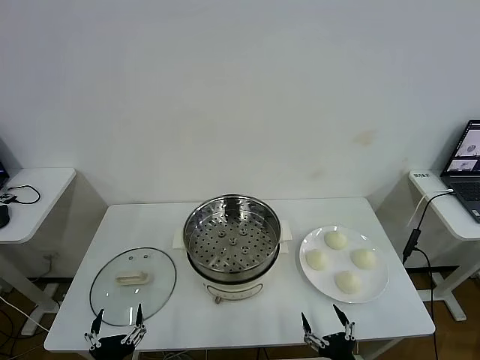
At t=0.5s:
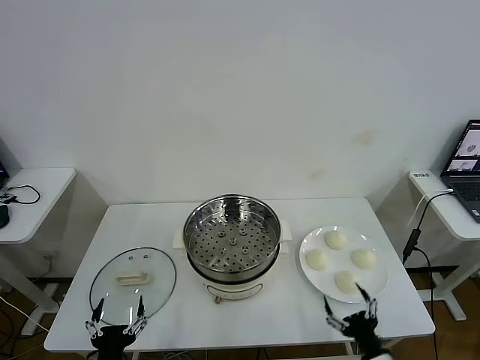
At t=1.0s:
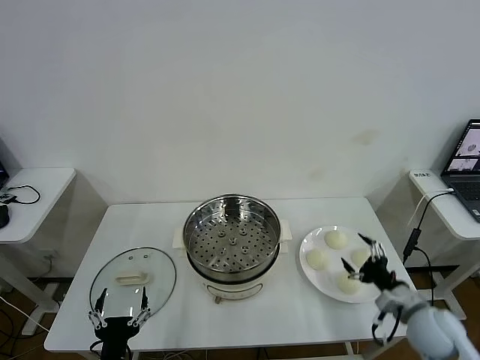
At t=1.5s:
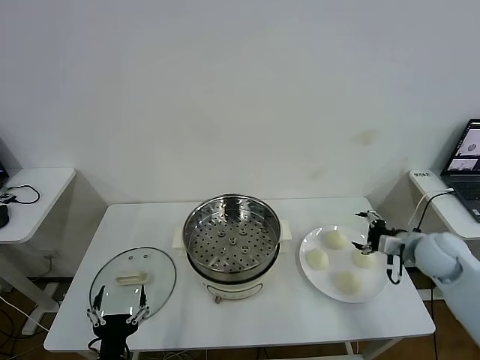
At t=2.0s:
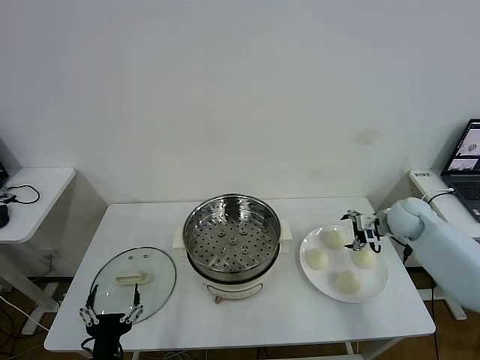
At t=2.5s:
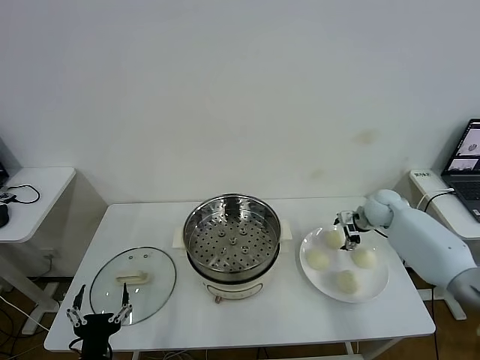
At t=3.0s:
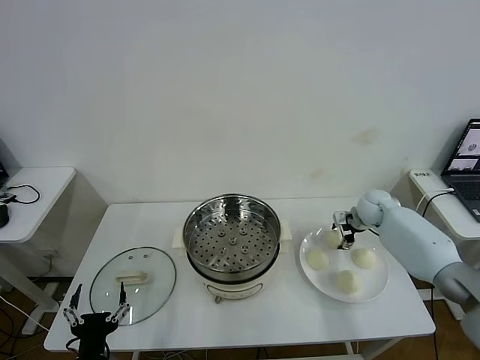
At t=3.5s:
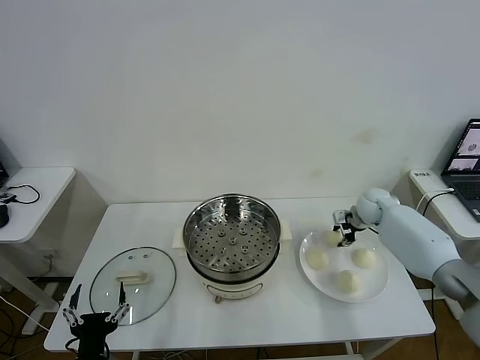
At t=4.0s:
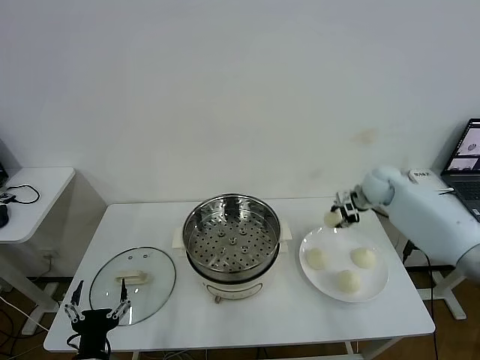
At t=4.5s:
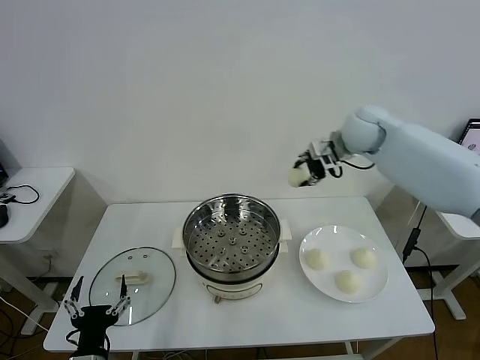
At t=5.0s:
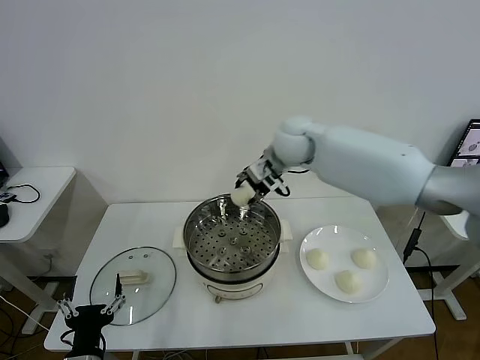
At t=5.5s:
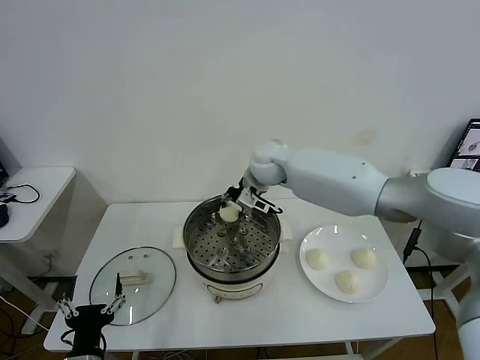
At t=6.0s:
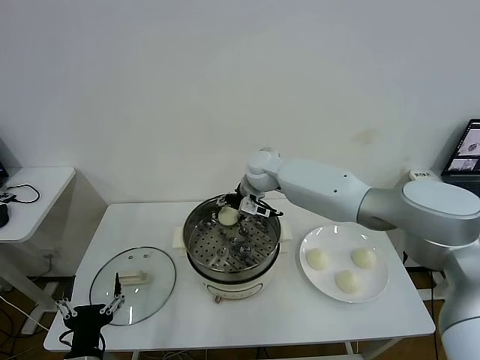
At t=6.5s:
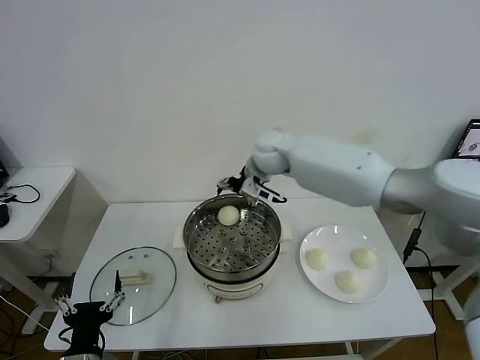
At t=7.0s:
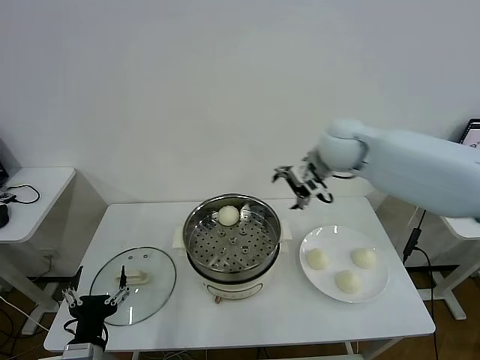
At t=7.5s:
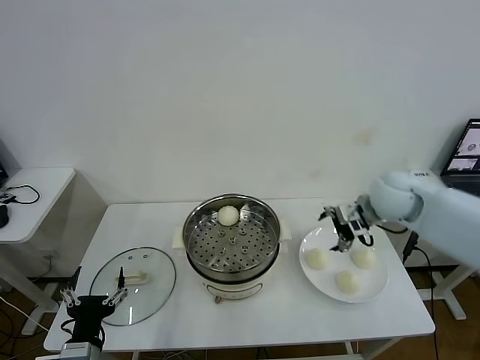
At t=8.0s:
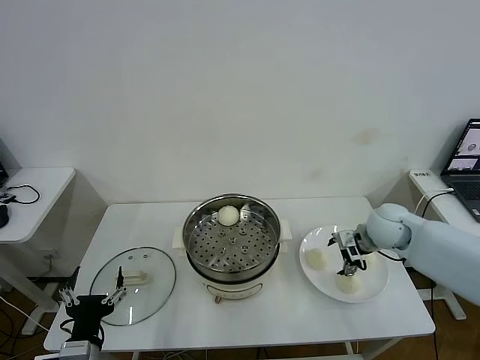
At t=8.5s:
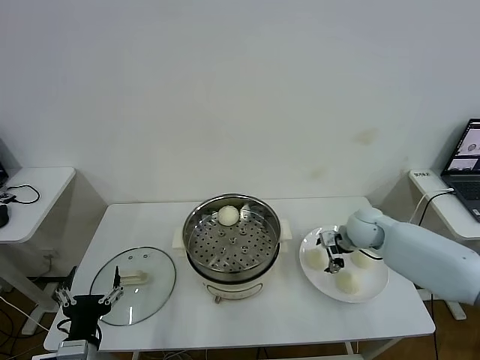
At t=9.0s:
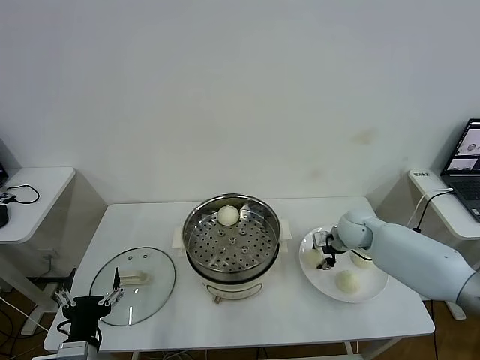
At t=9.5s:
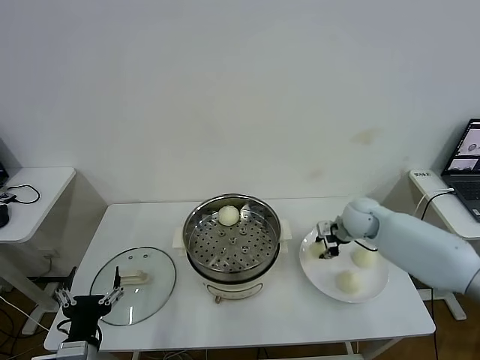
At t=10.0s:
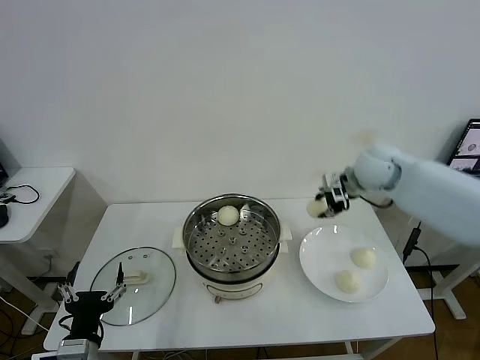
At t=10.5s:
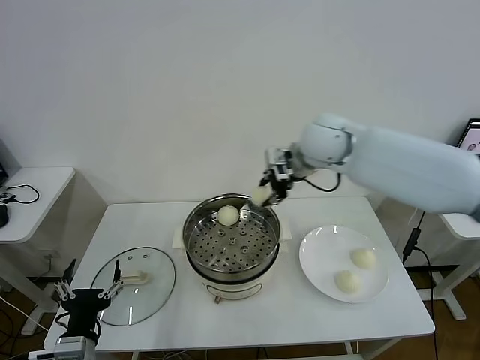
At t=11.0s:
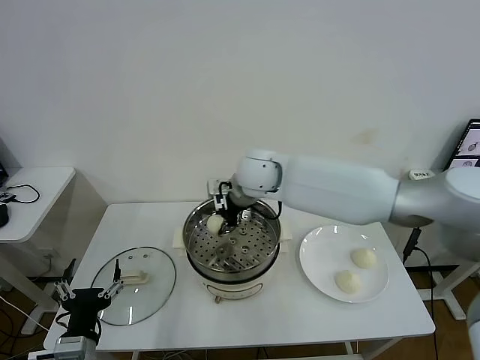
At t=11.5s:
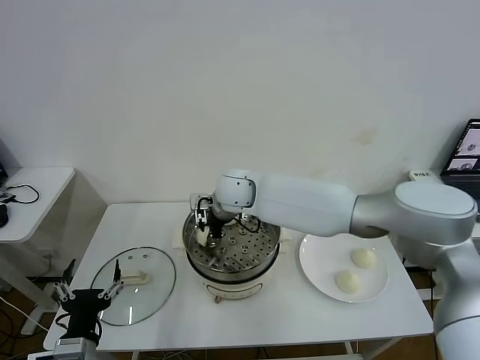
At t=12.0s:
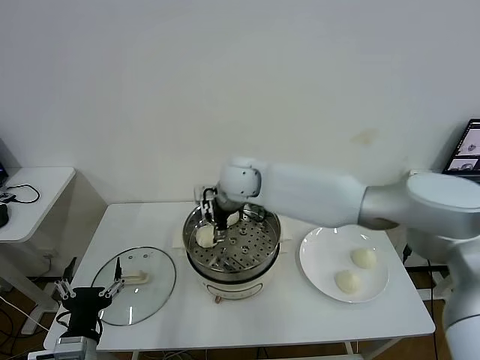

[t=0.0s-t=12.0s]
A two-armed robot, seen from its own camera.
Task of the whole recording: take steamed baozi put them in steamer then cover it.
Step, t=0.0s to t=3.0s: Grasp the baozi in the plate with right gripper.
Step, t=3.5s to t=6.0s: Place the baozi on the steamer with right gripper.
Step, t=6.5s to t=9.0s: Grasp the baozi in the plate with right gripper.
Step, t=9.5s to t=11.5s: Place the baozi on the steamer with right gripper.
t=2.0s to t=4.0s: The right gripper shifts some 15 cm upward, to the left and forward, and closes its fingers.
t=4.0s to t=6.0s: The right gripper travels to the left by some 30 cm, and opens up.
t=6.0s to t=8.0s: The right gripper travels to the right and backward by about 30 cm.
t=8.0s to t=10.0s: The right gripper moves upward, some 15 cm, and closes up.
t=10.0s to t=12.0s: The right gripper heads to the left, covering approximately 25 cm, and opens its fingers.

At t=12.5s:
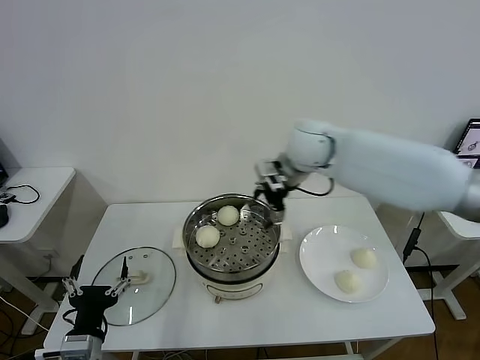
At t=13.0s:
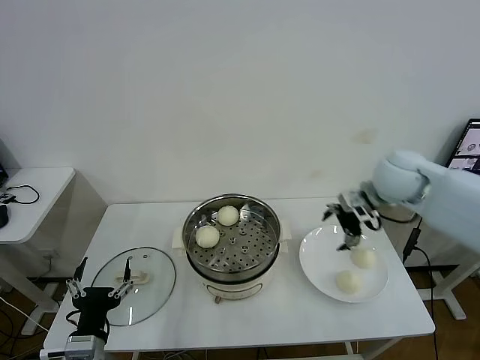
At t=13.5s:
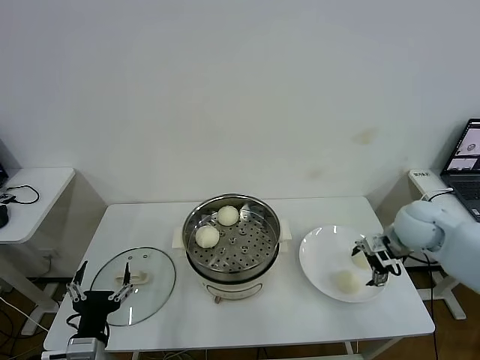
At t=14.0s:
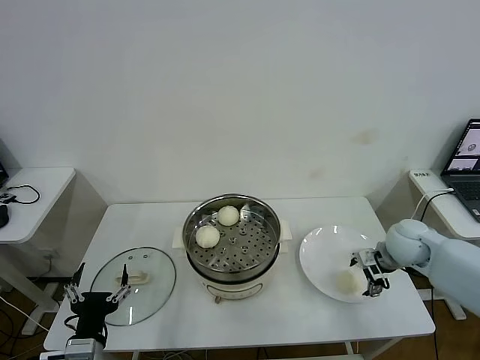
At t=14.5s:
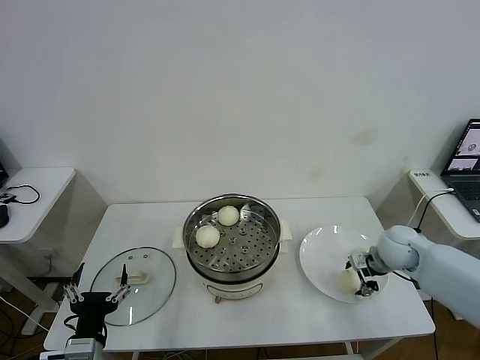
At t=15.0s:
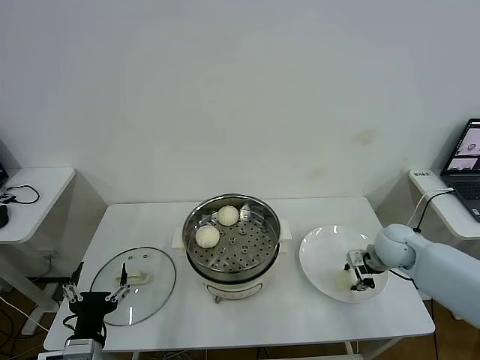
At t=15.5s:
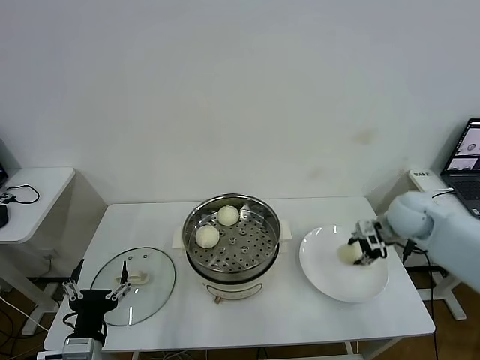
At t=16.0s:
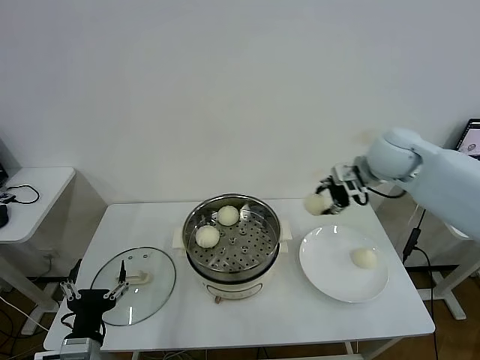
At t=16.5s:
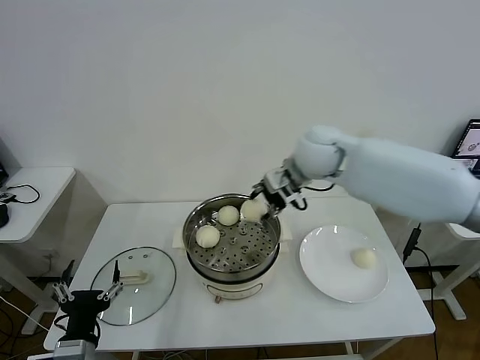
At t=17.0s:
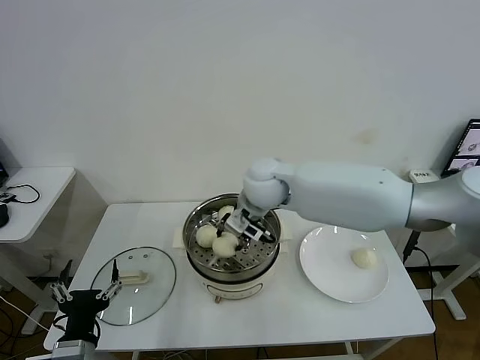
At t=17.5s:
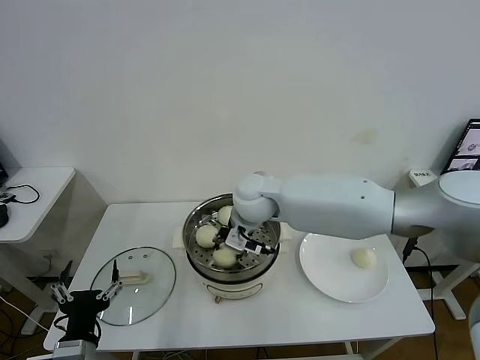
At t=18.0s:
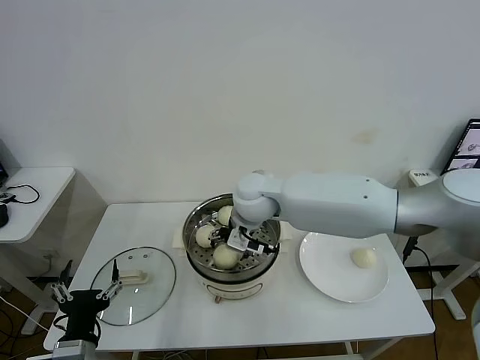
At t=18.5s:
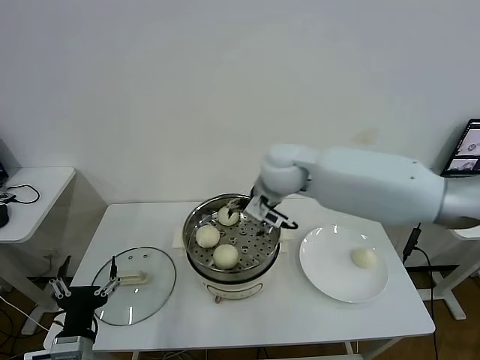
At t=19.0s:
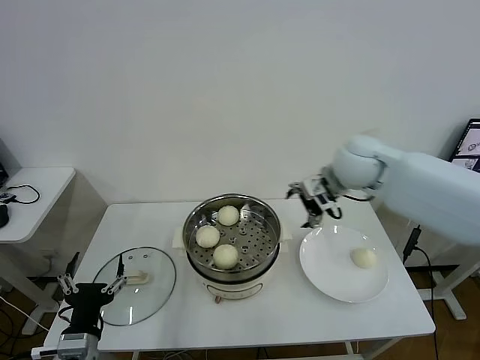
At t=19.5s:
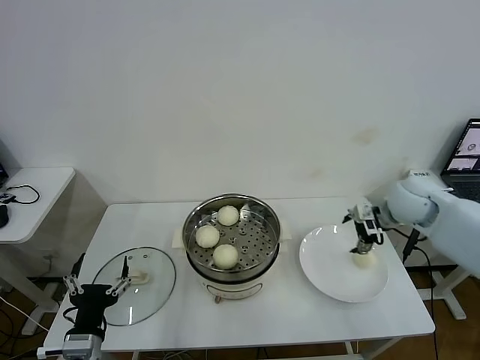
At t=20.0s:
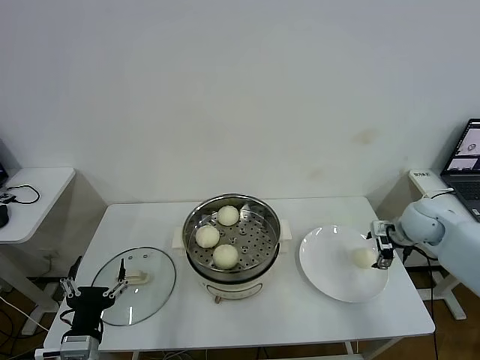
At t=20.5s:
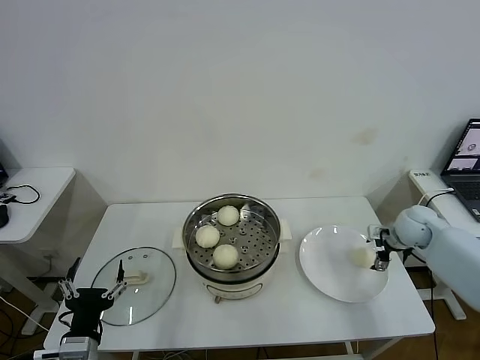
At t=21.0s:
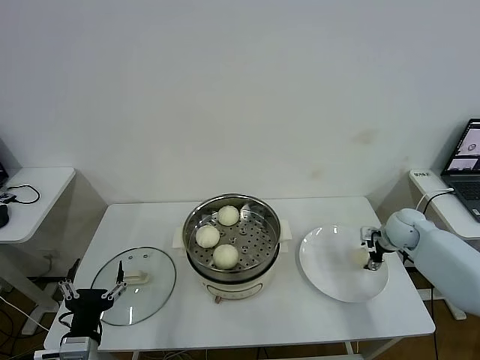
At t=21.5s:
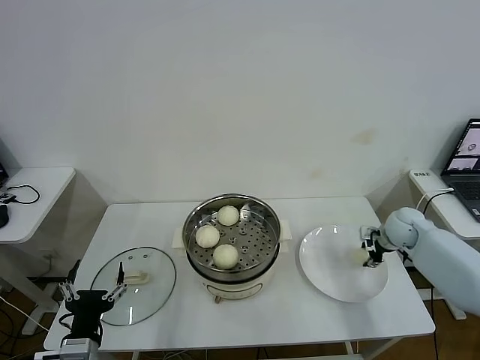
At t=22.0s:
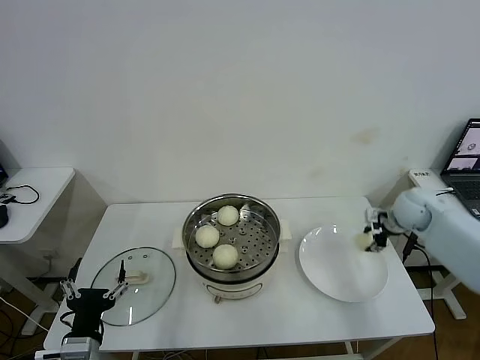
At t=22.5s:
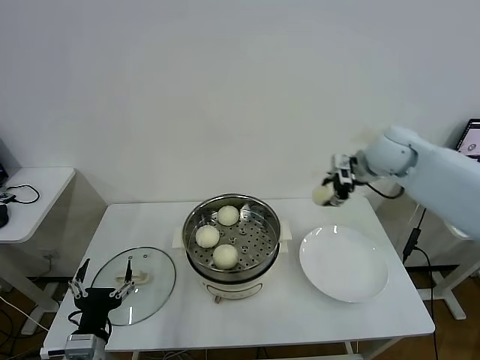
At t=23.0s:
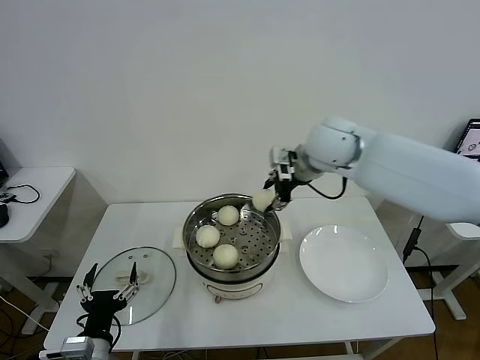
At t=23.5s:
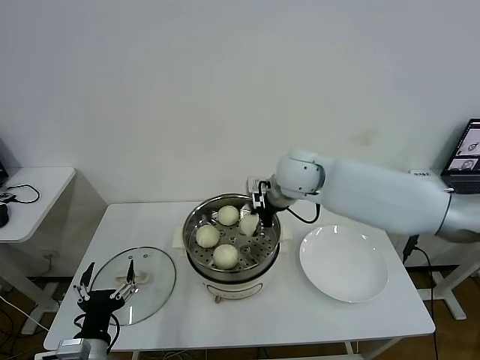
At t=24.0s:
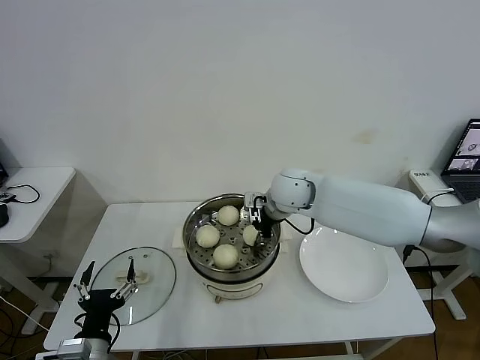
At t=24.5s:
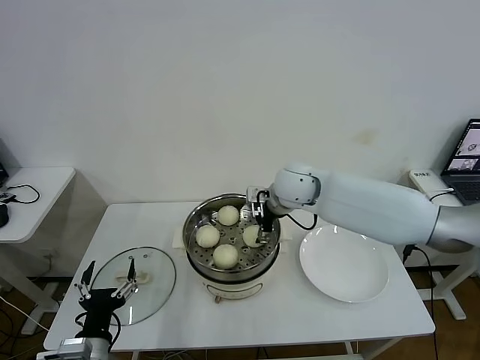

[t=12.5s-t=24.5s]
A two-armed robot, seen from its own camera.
Task of the whole recording: take steamed baozi put them in steamer then cover it.
Step, t=12.5s to t=14.5s: Grasp the baozi in the plate with right gripper.
Step, t=15.5s to t=17.5s: Place the baozi on the steamer with right gripper.
Step, t=18.5s to t=21.5s: Grasp the baozi in the plate with right gripper.
Step, t=22.0s to t=24.0s: Place the baozi on the steamer with right gripper.
t=12.5s to t=14.5s: The right gripper travels downward and to the right by about 30 cm.
t=14.5s to t=16.5s: The right gripper travels to the left and upward by about 30 cm, and closes up.
t=16.5s to t=18.5s: The right gripper opens.
t=18.5s to t=20.5s: The right gripper is displaced to the right and downward by about 40 cm.
t=20.5s to t=22.5s: The right gripper is displaced upward and to the left by about 25 cm, and closes.
t=22.5s to t=24.5s: The right gripper travels to the left and downward by approximately 20 cm, and opens.

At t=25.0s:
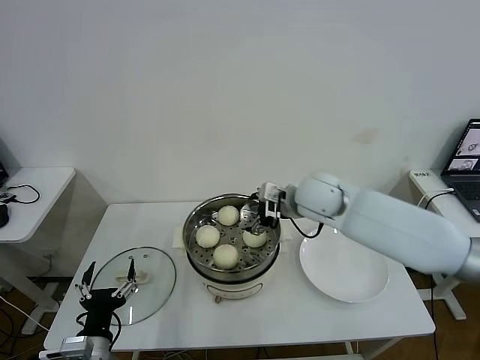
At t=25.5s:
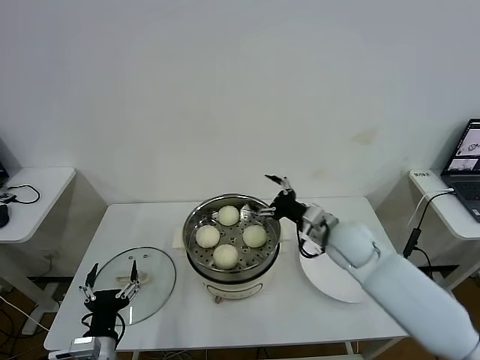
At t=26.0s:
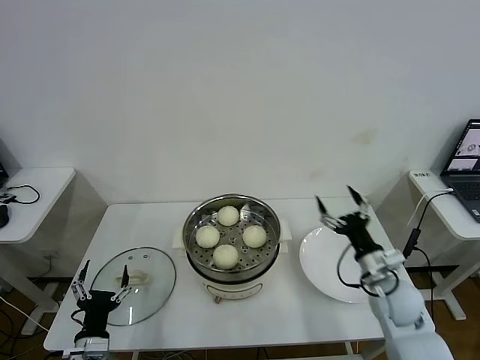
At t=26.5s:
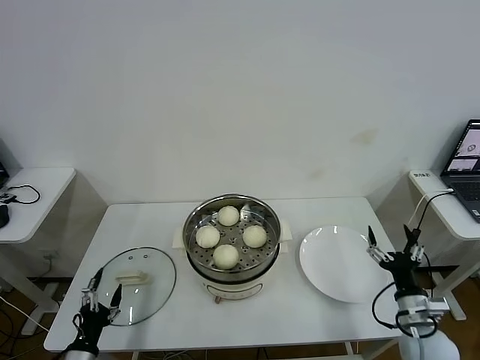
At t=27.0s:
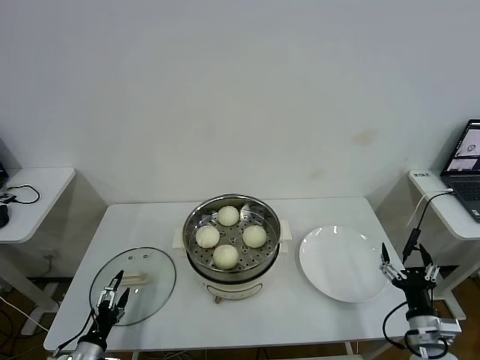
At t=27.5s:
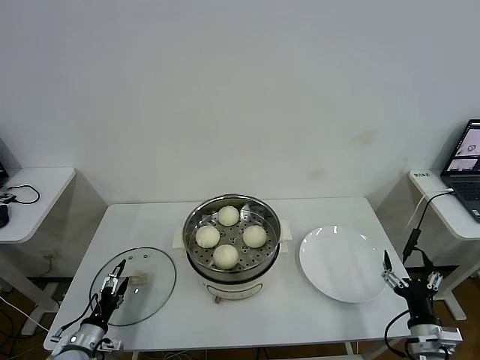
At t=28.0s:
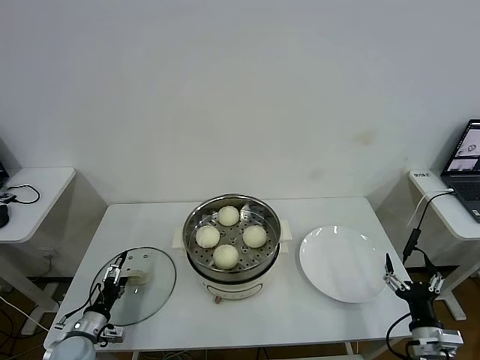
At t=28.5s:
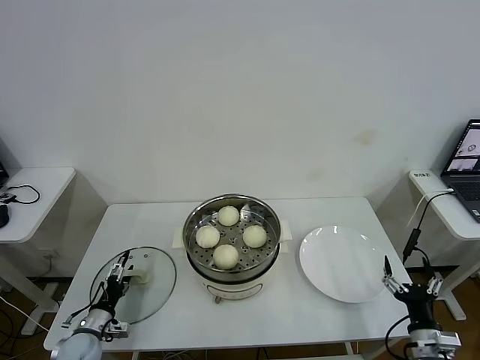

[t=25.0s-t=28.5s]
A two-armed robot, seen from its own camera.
Task of the whole recording: take steamed baozi put them in steamer then cover it.
t=25.0s to t=27.0s: The right gripper goes some 40 cm backward, to the right and downward. The left gripper heads downward and to the left, covering about 15 cm.
t=27.0s to t=28.5s: The left gripper is displaced forward by approximately 10 cm.
